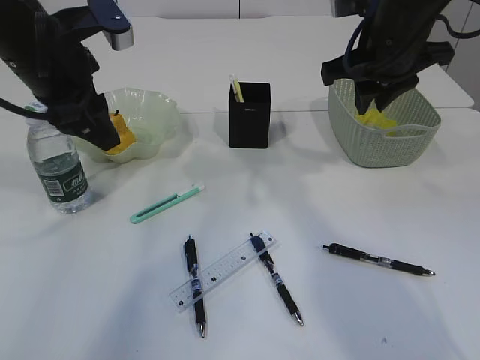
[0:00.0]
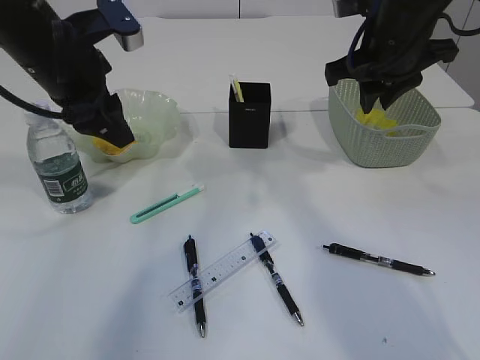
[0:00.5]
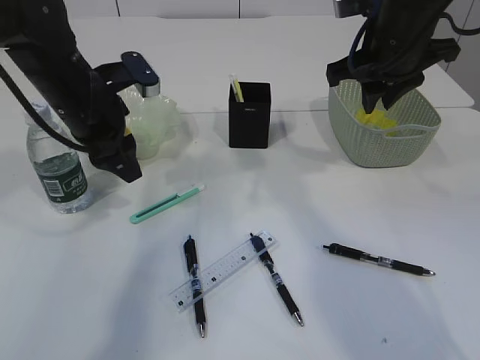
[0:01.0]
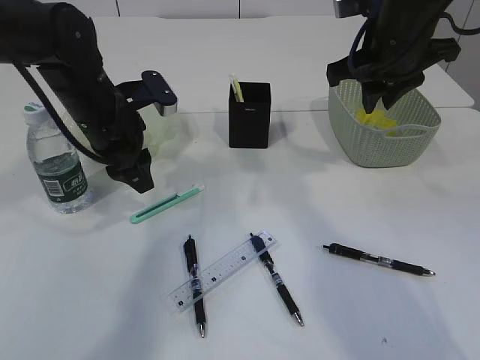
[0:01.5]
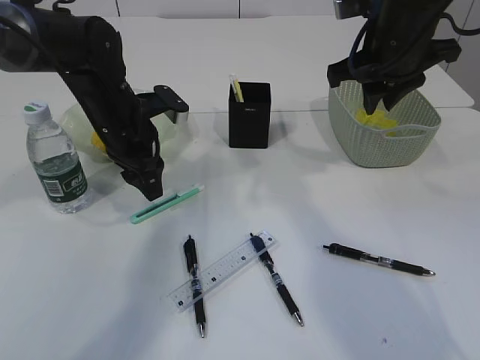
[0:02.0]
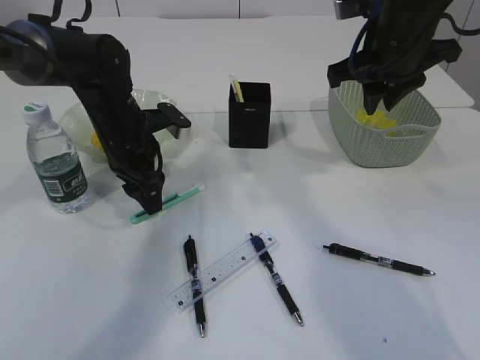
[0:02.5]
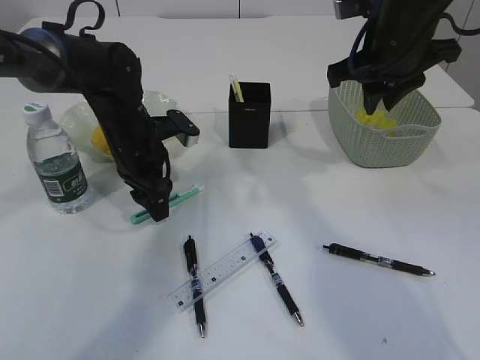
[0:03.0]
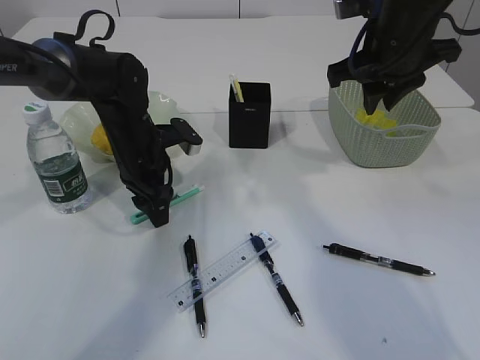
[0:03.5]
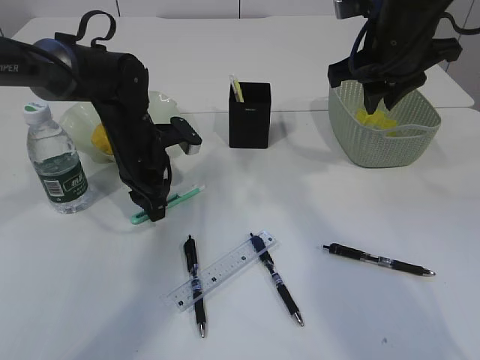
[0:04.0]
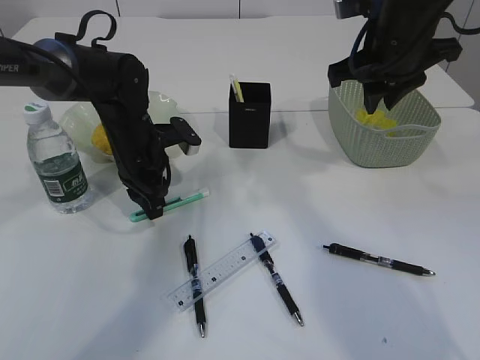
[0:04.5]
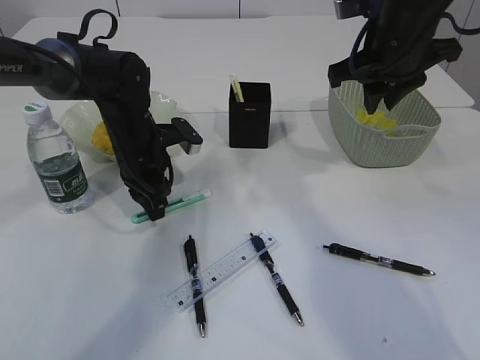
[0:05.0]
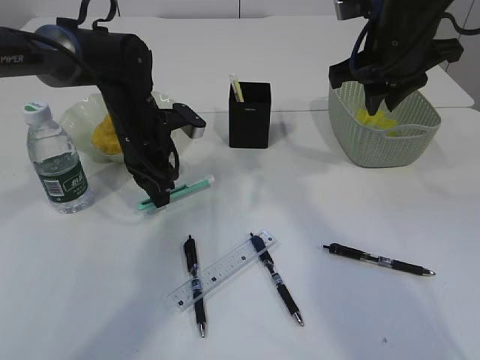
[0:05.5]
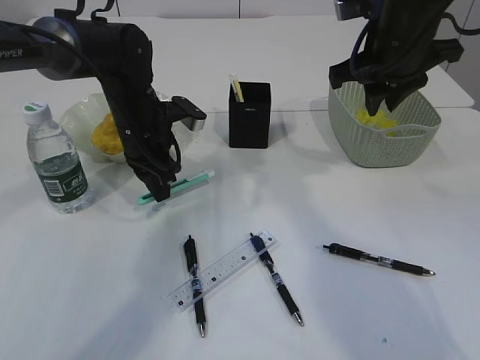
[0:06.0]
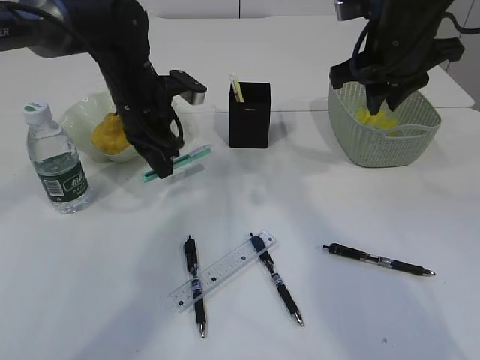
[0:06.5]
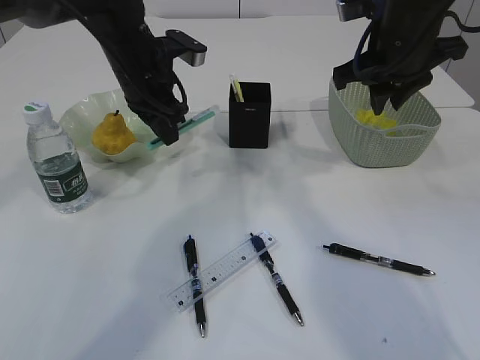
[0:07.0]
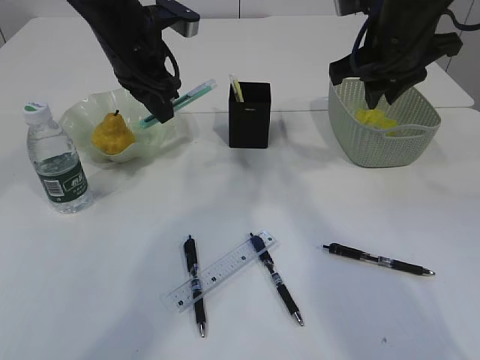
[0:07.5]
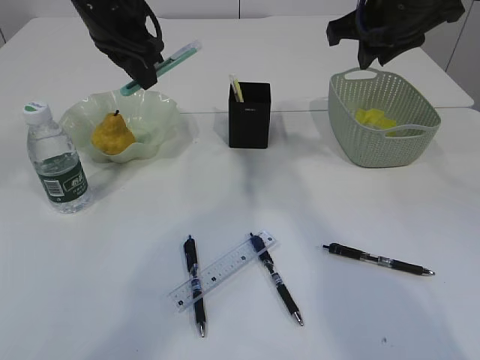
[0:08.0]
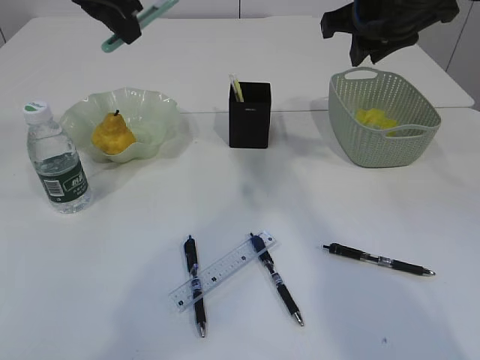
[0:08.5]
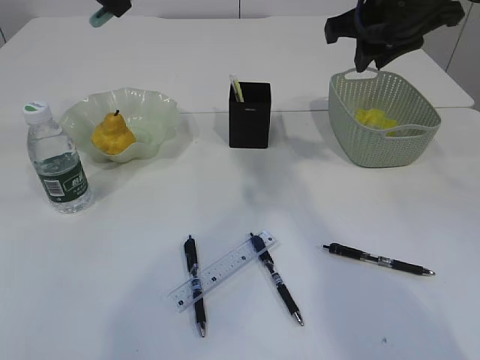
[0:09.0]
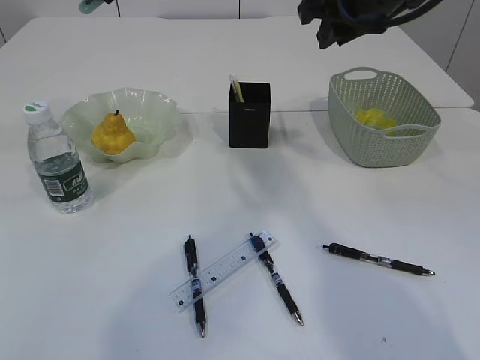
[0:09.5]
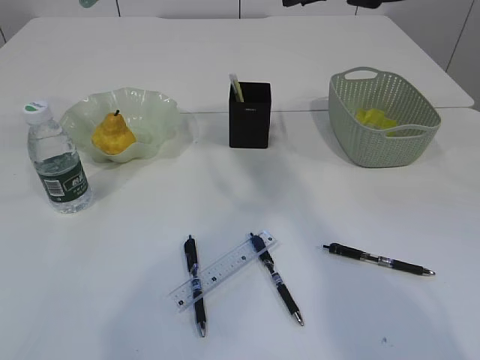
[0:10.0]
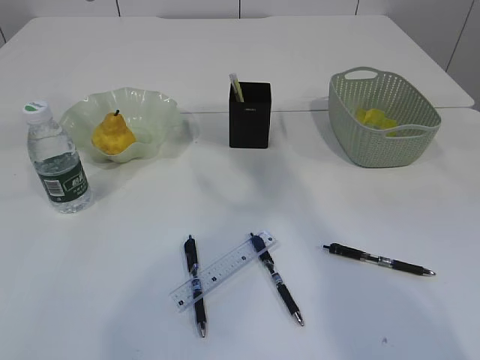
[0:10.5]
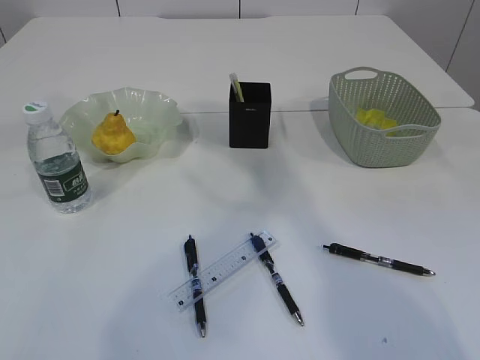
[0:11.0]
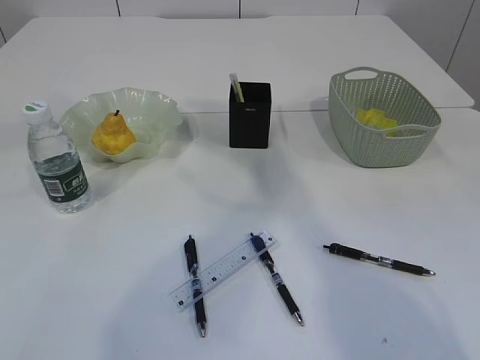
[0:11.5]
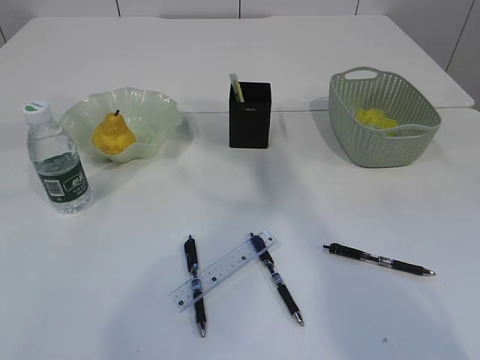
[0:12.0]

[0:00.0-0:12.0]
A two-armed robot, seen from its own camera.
Step, 0:00.0 to 0:06.0: pick up the blue knife.
0:00.0 to 0:02.0: The left gripper shifts roughly 15 cm downward and forward.
0:02.0 to 0:04.0: The left gripper closes up.
0:04.0 to 0:06.0: There are only small adjustments of the grippers.
0:06.0 to 0:08.0: The left gripper travels upward by some 15 cm.
0:08.0 to 0:10.0: The left gripper goes some 10 cm upward. Meanwhile the right gripper moves roughly 5 cm.

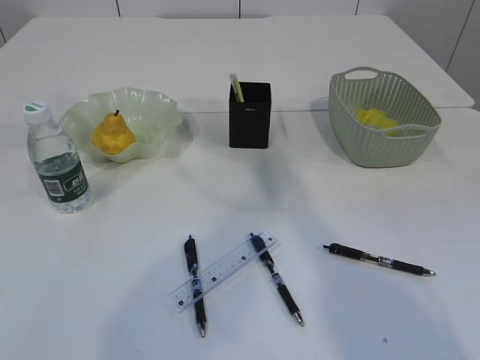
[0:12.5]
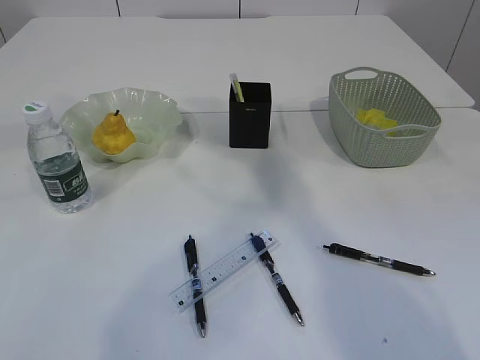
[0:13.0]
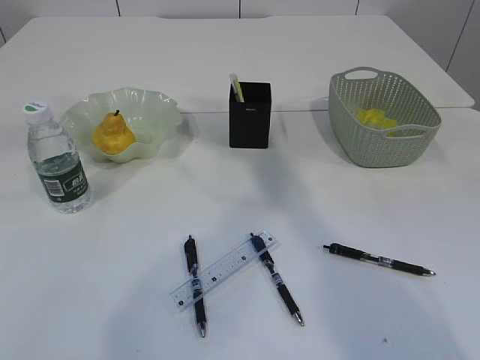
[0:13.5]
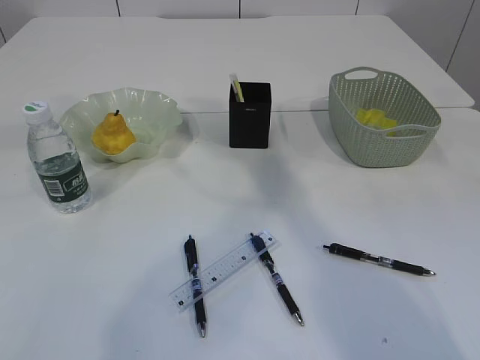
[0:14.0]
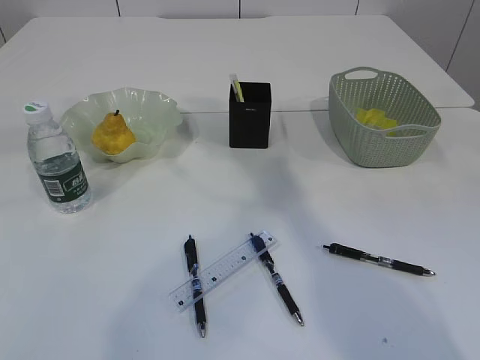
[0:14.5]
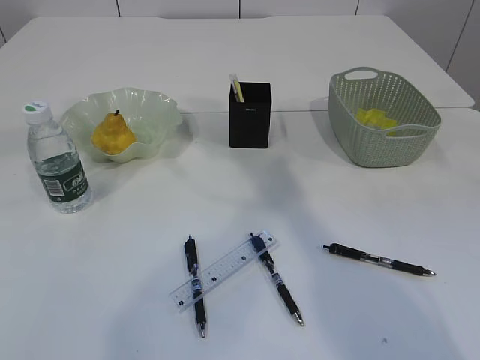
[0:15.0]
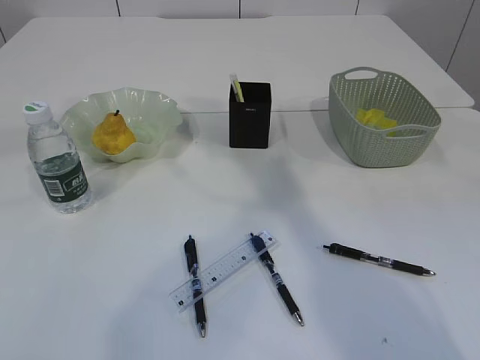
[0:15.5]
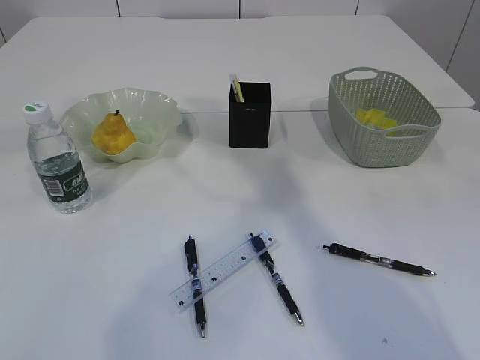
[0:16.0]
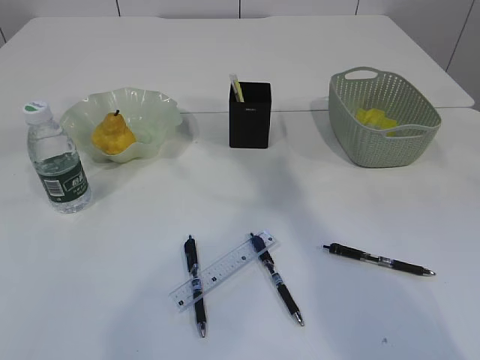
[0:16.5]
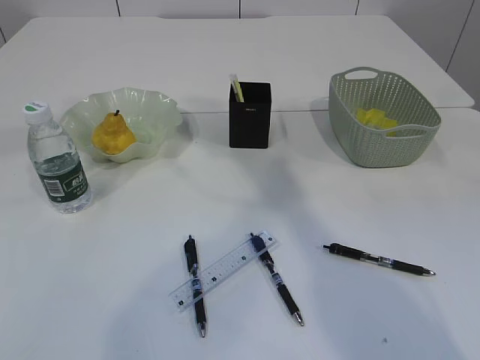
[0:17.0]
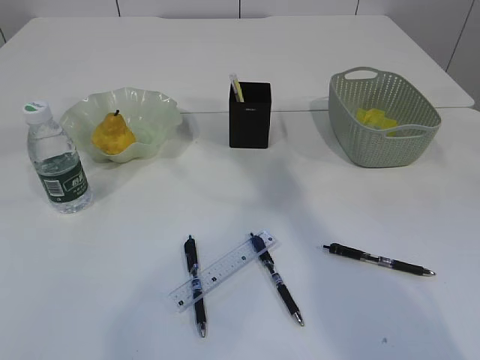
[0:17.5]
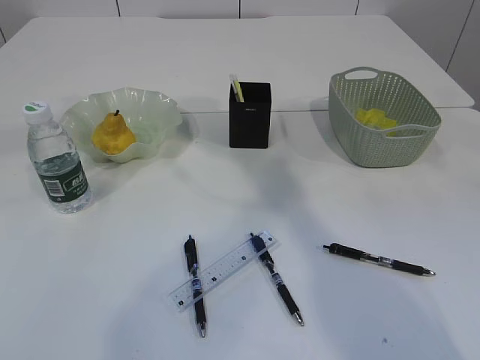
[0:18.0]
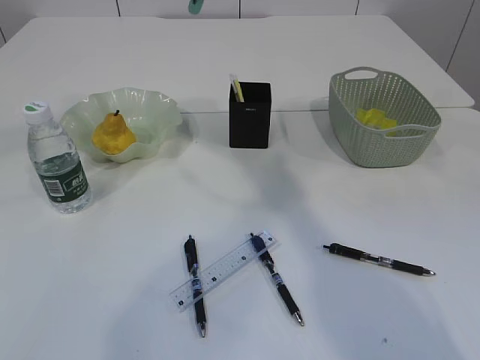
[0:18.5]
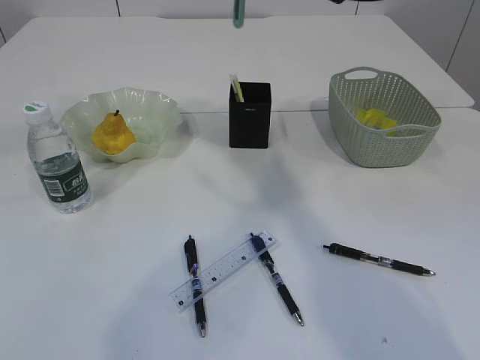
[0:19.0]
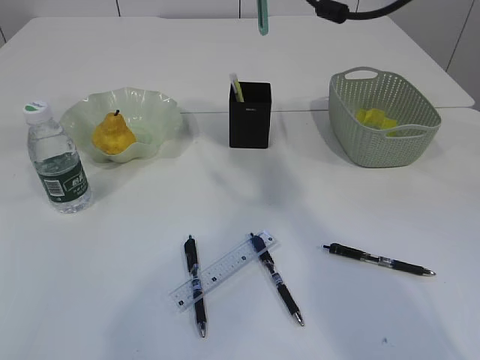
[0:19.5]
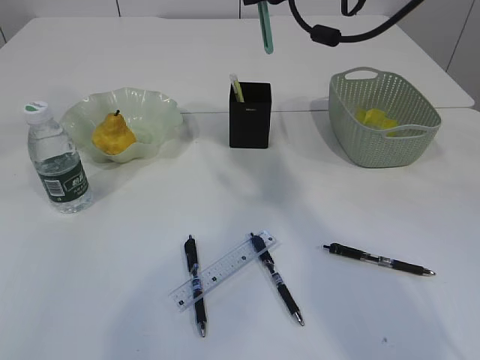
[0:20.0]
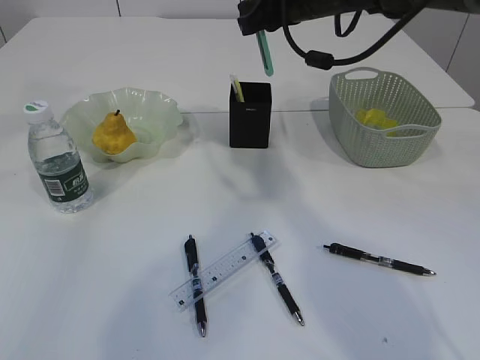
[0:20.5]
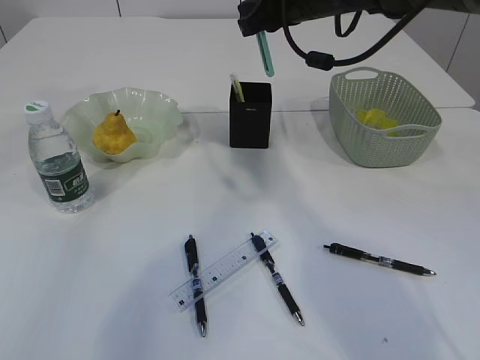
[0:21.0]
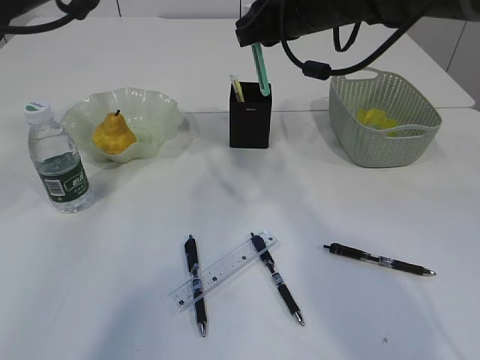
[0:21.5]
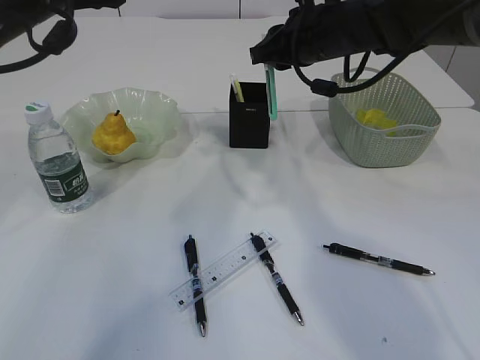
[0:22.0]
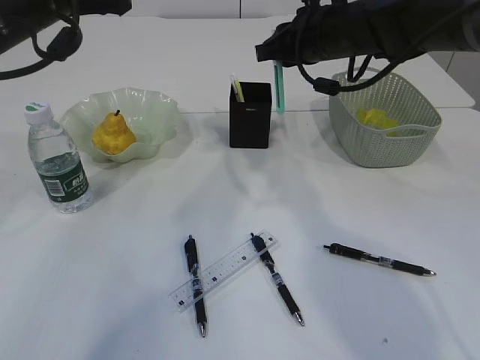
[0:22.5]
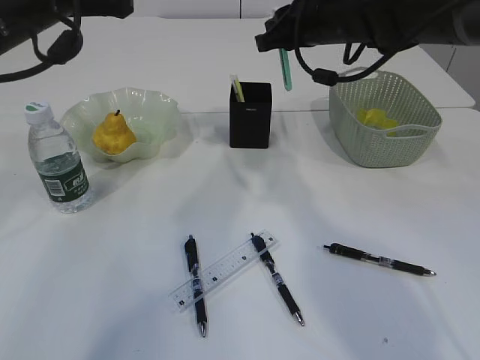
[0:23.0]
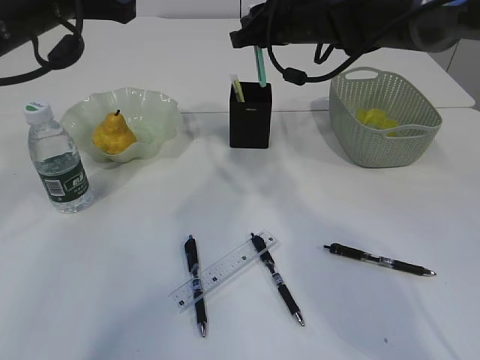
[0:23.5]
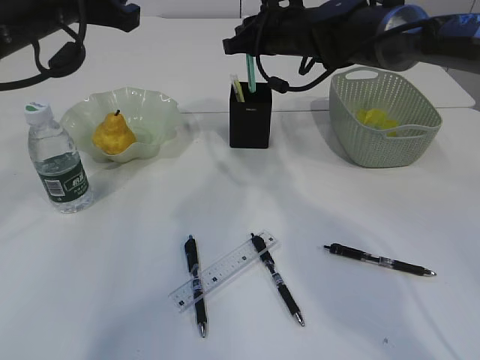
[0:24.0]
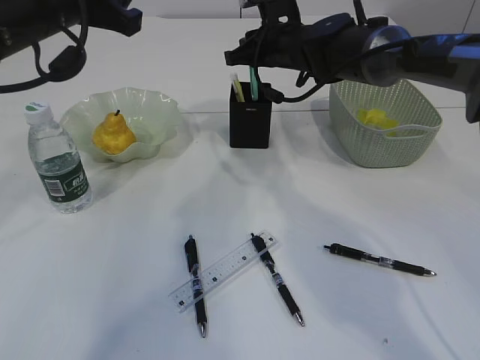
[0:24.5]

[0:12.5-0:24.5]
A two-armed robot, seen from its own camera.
0:18.5 to 0:20.5: The right gripper shifts roughly 10 cm downward. Meanwhile the left gripper changes place by about 5 cm.
0:20.5 to 0:22.5: The right gripper shifts by about 5 cm. Meanwhile the left gripper moves downward and backward, roughly 15 cm.
0:22.5 to 0:24.5: The right gripper is displaced forward by some 10 cm.

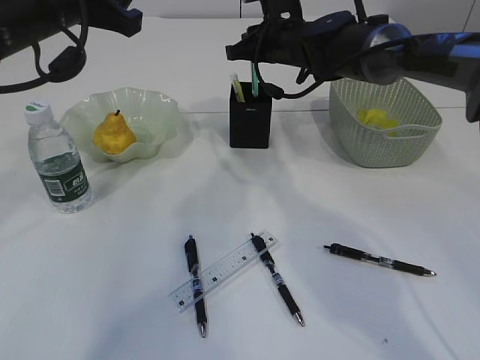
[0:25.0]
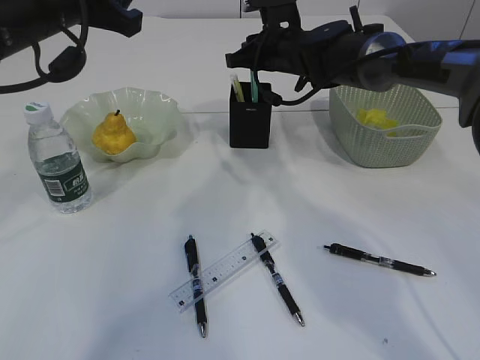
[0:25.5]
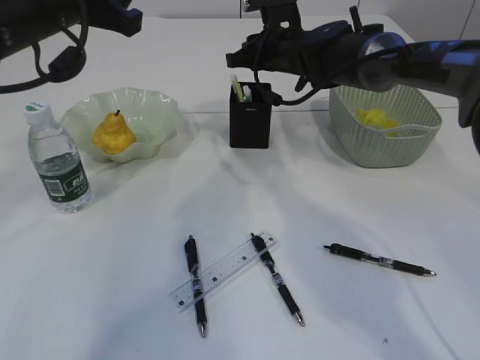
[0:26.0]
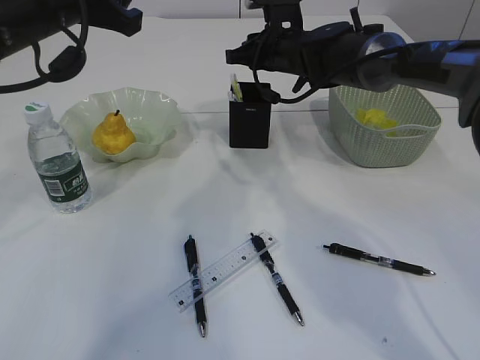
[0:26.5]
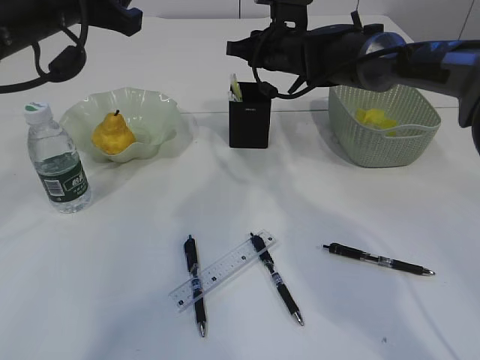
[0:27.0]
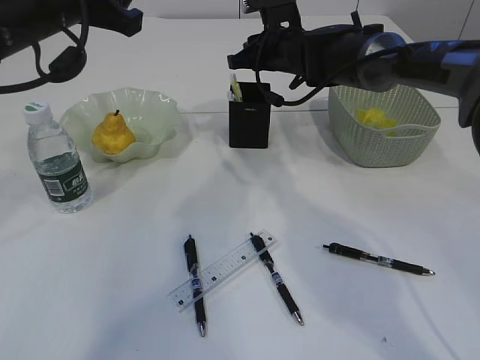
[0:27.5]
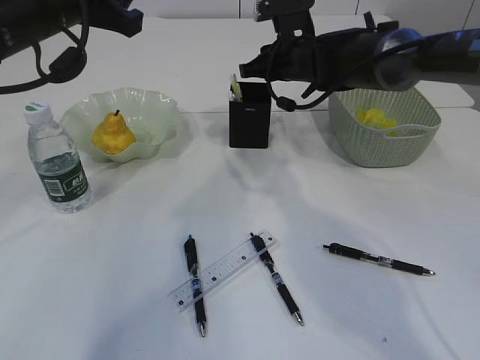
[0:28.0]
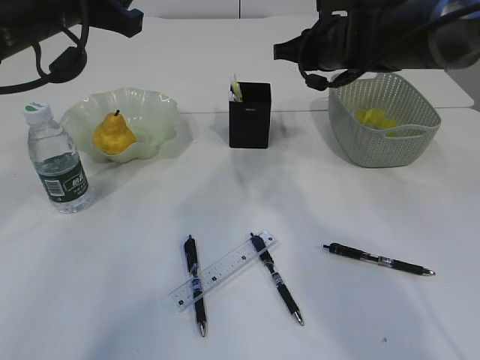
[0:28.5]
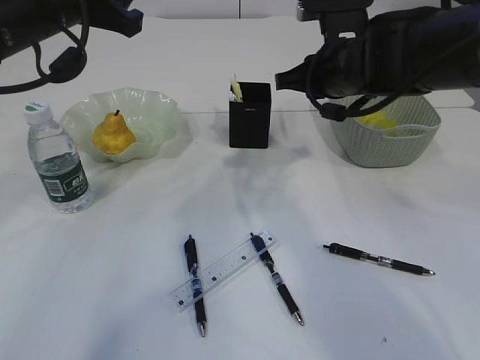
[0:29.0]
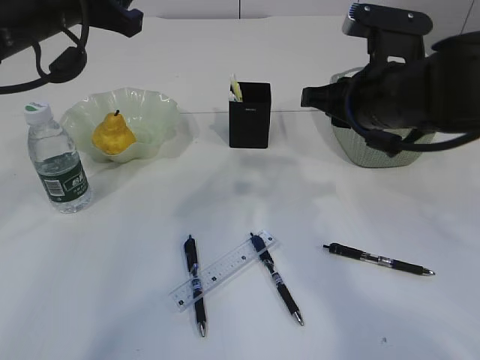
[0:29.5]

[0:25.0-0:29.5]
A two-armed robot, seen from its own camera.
Step, 0:25.0 to 0:29.0: Place the blue knife into the pen holder.
0:25.0 to 0:27.0: There are only small adjustments of the grippers.
0:27.0 to 0:29.5: The right gripper goes approximately 20 cm backward.
